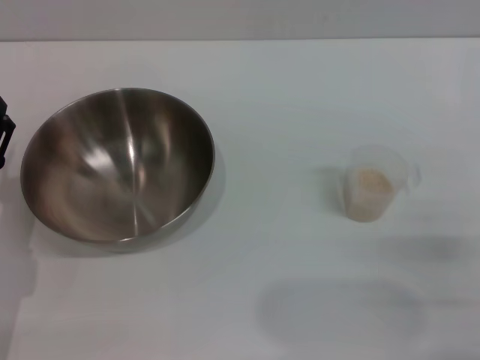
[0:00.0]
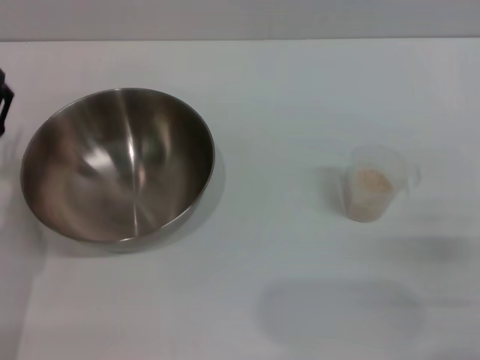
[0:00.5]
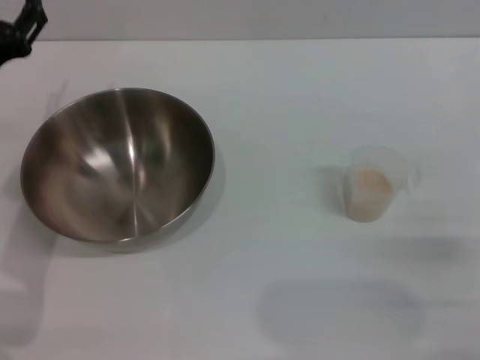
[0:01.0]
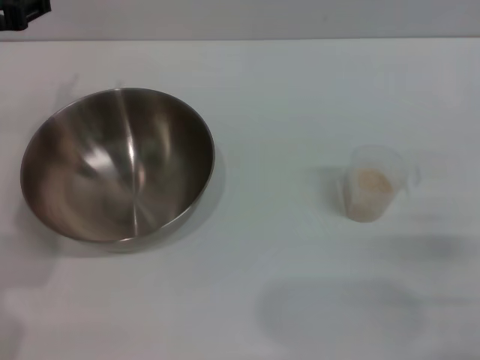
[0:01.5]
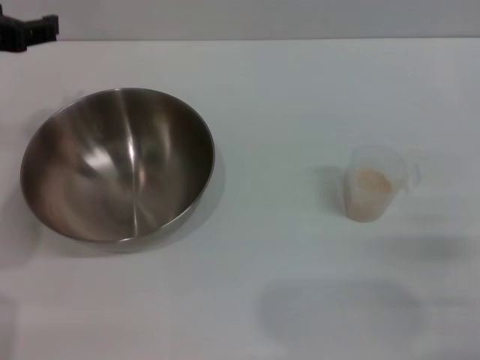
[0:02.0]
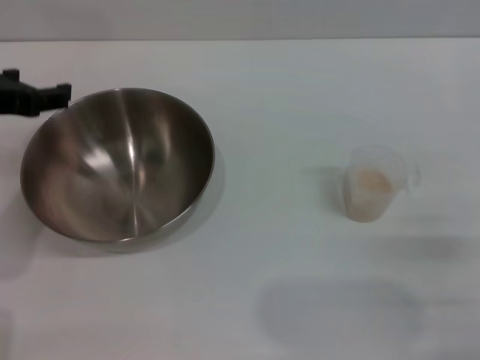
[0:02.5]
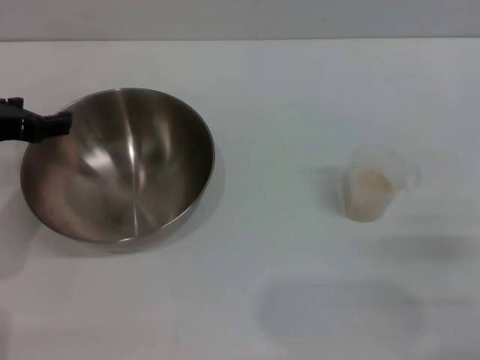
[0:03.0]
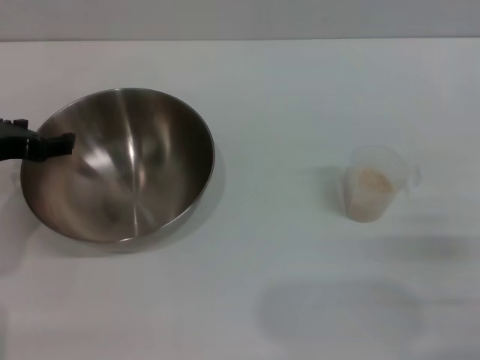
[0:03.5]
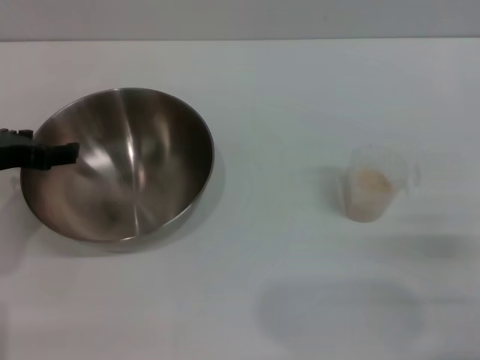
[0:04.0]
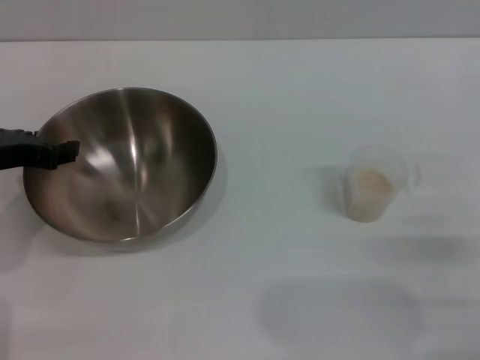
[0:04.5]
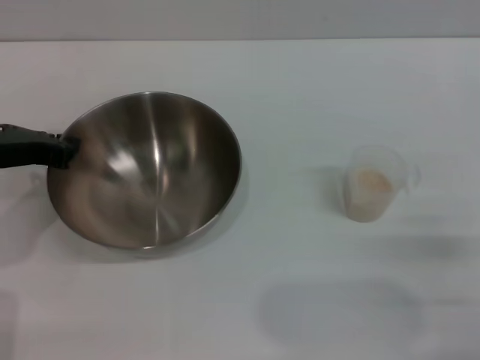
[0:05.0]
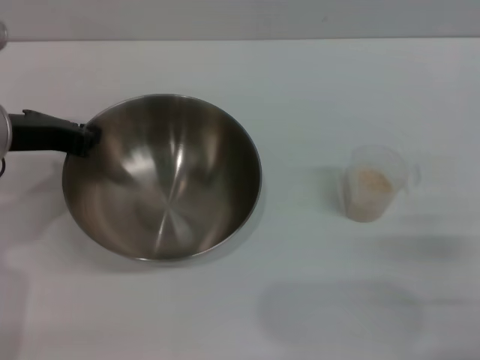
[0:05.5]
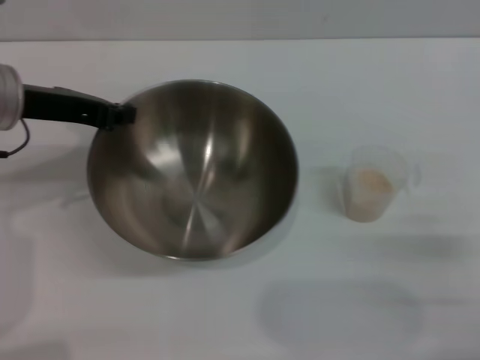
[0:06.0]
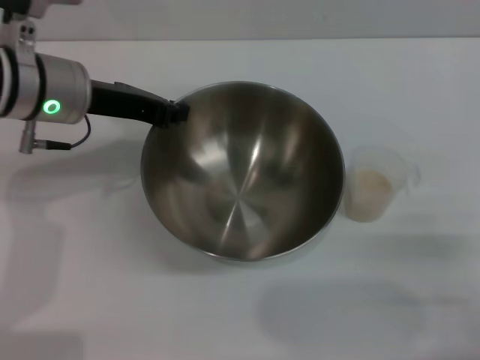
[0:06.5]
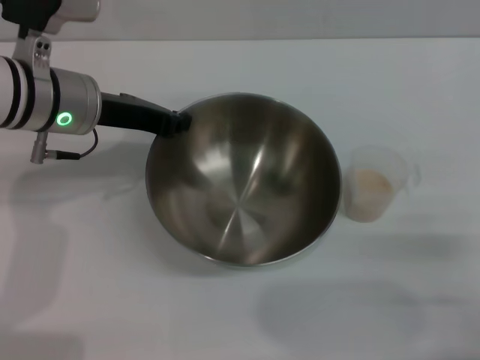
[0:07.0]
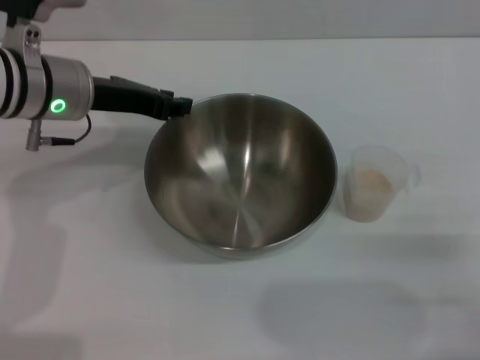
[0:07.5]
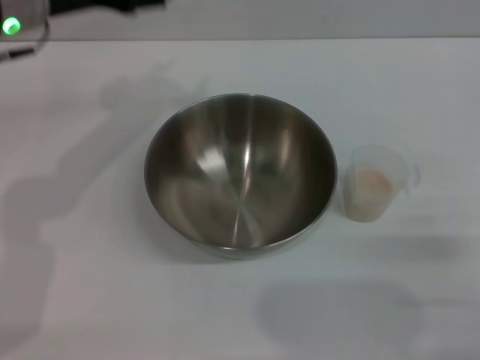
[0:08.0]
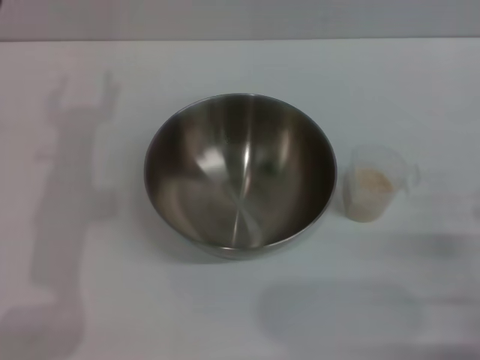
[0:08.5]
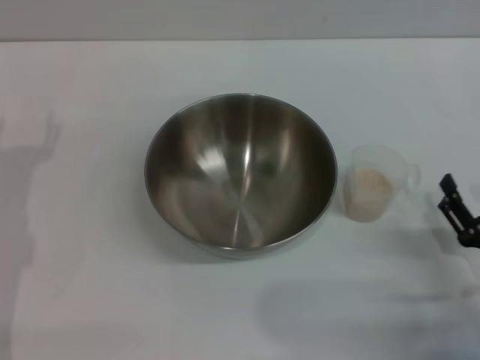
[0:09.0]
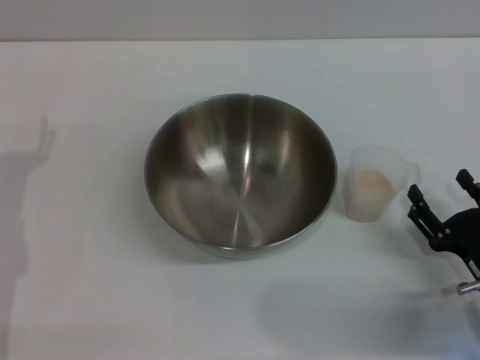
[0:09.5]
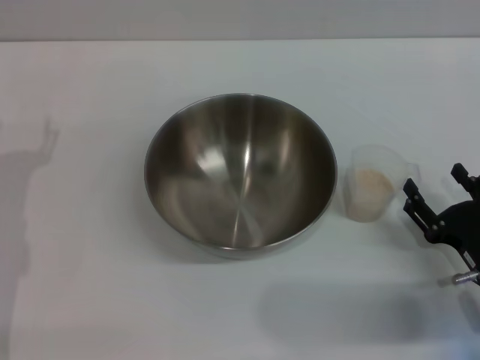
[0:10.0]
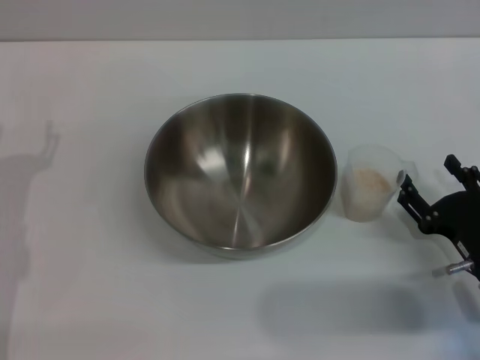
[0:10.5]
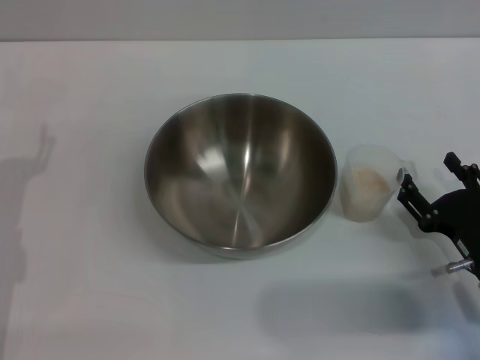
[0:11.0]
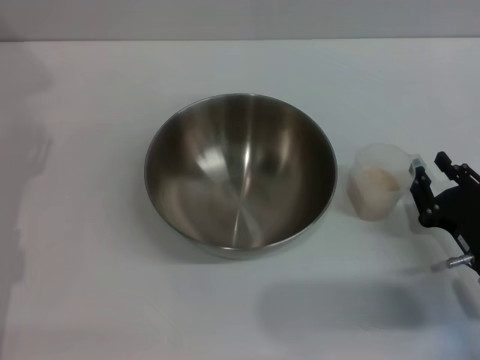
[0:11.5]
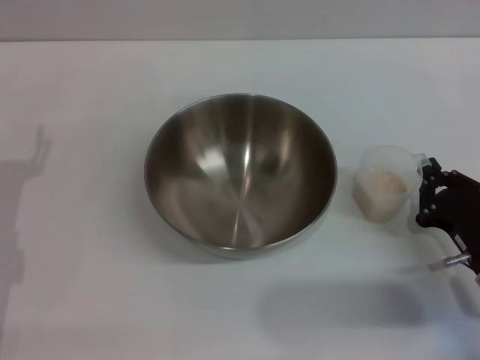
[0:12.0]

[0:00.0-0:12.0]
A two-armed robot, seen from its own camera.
Task of the whole recording: Place the bowl in the middle of the table with one hand and pour the rice from the grain cup into it with the other hand.
Step, 0:00.0 to 0:06.0: Pick up the bowl with the left gripper.
Step, 0:06.5 to 0:07.5: Place the bowl in the center of view with the left gripper.
0:00.0 to 0:02.0: The left gripper moves upward and forward, approximately 20 cm.
0:02.0 to 0:04.0: The left gripper heads downward, covering roughly 10 cm.
0:04.0 to 0:06.0: The left gripper changes place by roughly 5 cm, and closes its fingers.
0:06.0 to 0:08.0: The left gripper moves roughly 5 cm, and opens its fingers.
0:08.0 to 0:10.0: The right gripper moves forward, some 5 cm; the left gripper shifts some 20 cm downward, backward and to the left.
0:10.0 to 0:12.0: The right gripper closes.

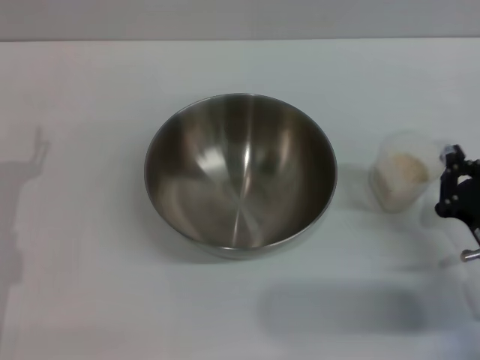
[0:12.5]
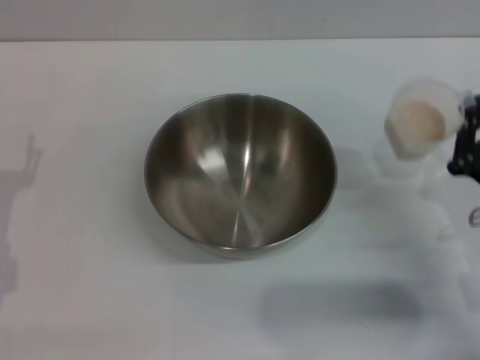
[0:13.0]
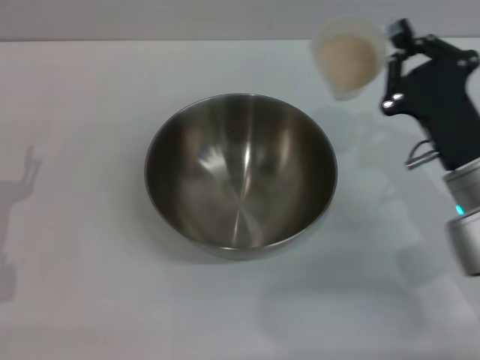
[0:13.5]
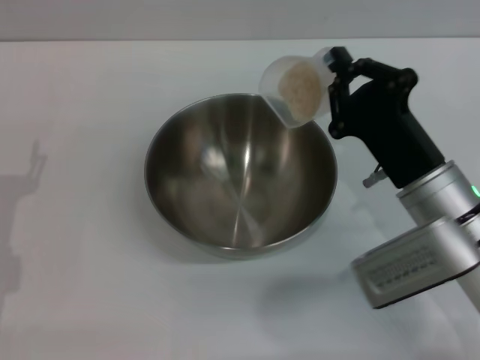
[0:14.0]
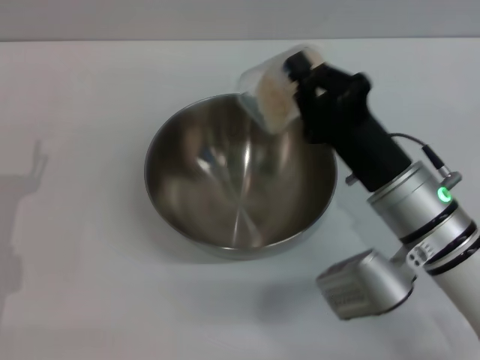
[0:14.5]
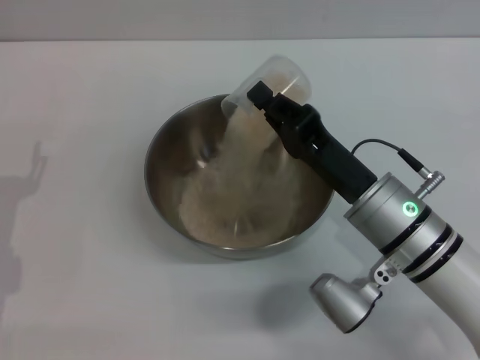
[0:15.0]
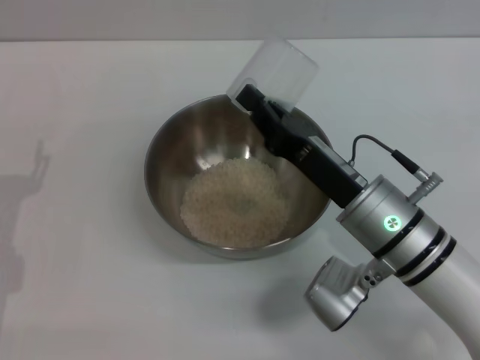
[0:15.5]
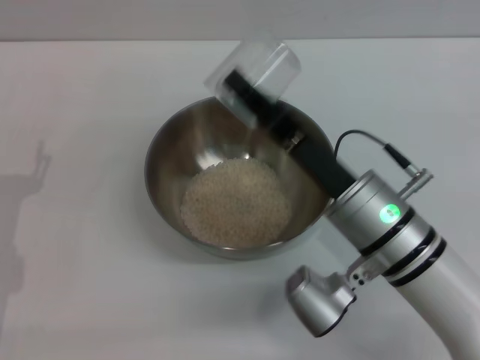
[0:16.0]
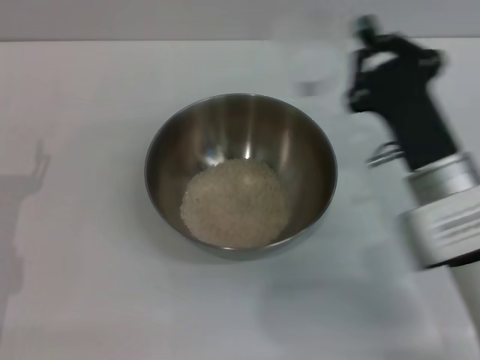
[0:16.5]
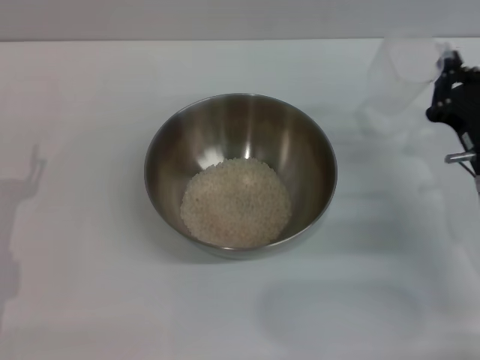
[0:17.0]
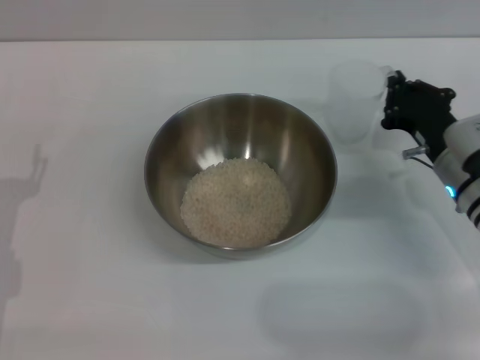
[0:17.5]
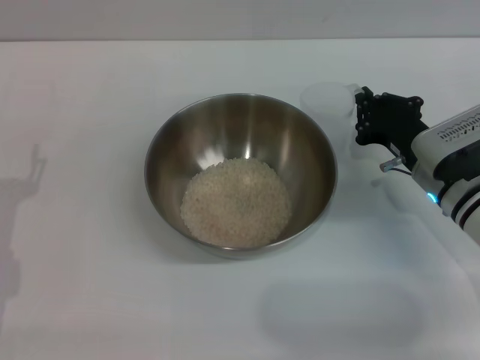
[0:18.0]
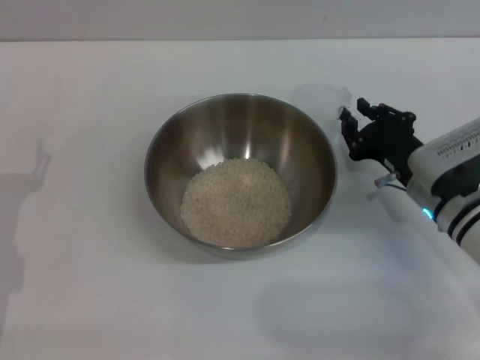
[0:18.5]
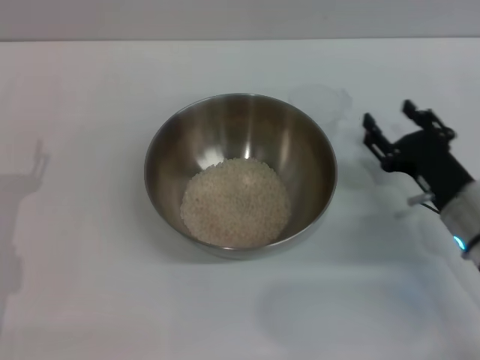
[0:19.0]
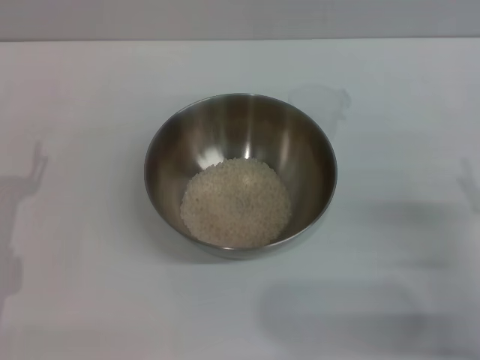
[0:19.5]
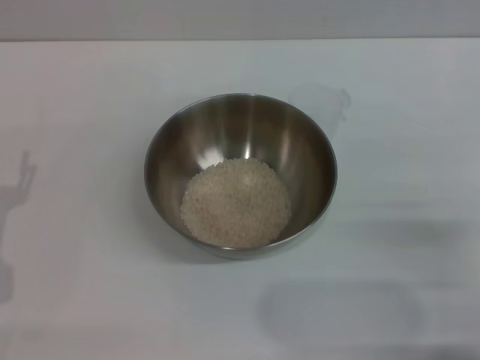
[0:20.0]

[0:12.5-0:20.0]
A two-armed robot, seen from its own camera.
Task of the whole recording: Place the bowl in the middle of the table with one hand and pour the rice from the grain cup into it with the other hand.
Step, 0:13.0 to 0:15.0: Pour the rice from the cup into the bowl with the right gripper.
Step, 0:15.5 to 0:18.5: Place the cup on the table with the right gripper.
0:12.5 to 0:14.5: The right gripper moves to the left, forward and upward, some 15 cm.
0:16.5 to 0:18.0: The right gripper heads forward, to the right and downward, covering approximately 10 cm.
0:18.0 to 0:20.0: The right gripper is displaced backward and to the right by some 20 cm, and opens.
